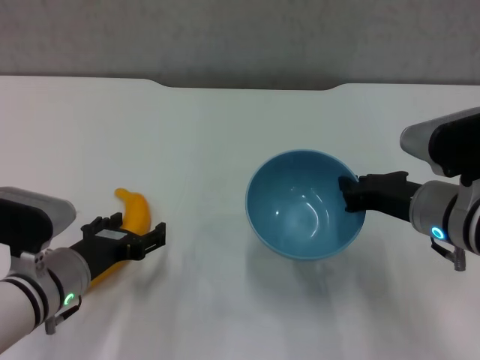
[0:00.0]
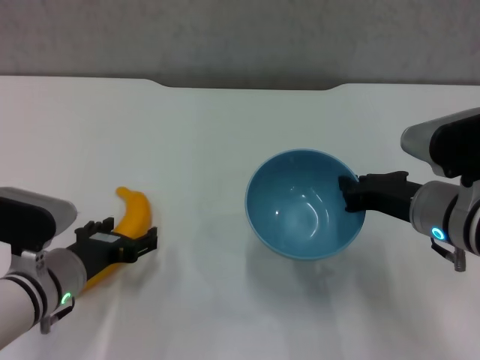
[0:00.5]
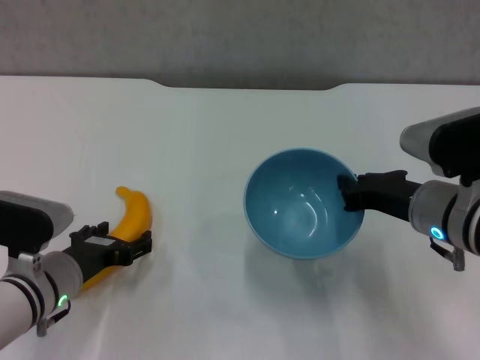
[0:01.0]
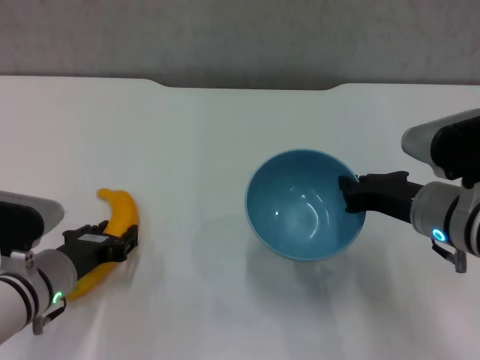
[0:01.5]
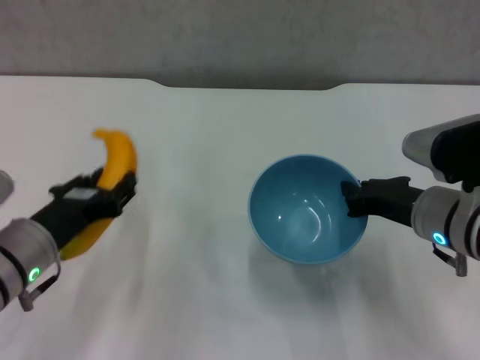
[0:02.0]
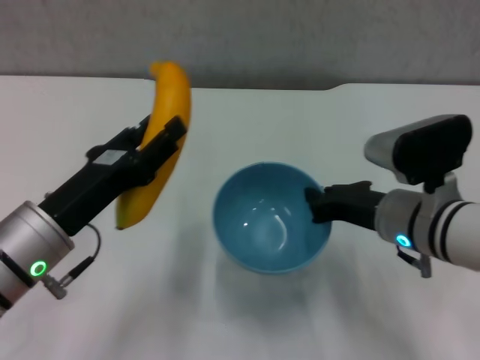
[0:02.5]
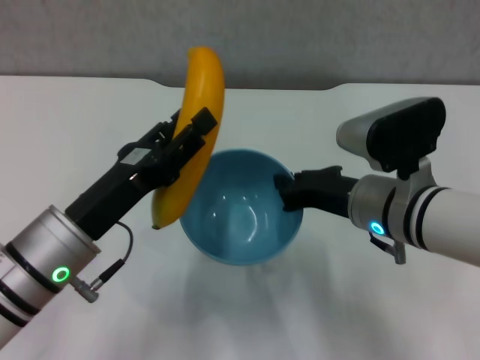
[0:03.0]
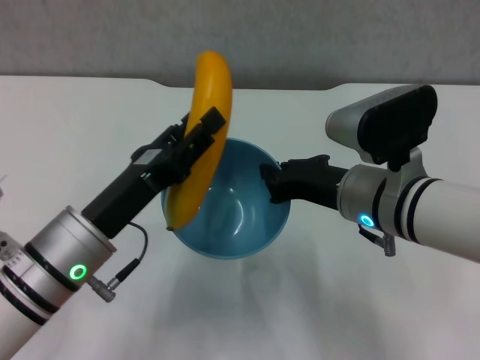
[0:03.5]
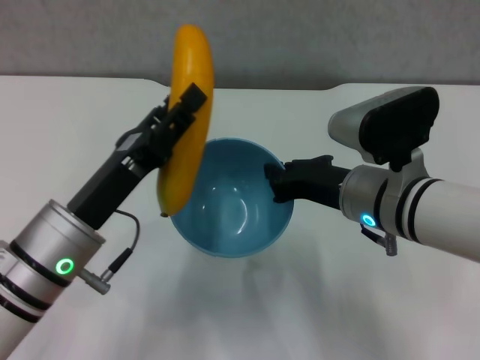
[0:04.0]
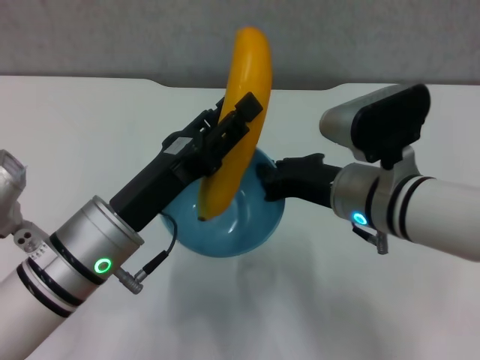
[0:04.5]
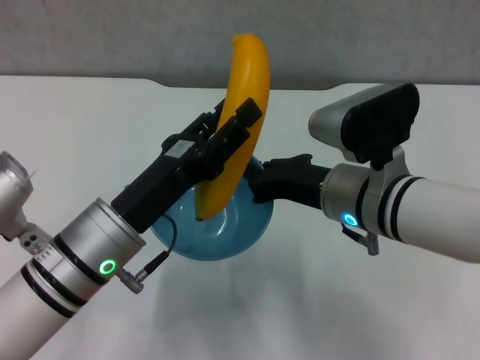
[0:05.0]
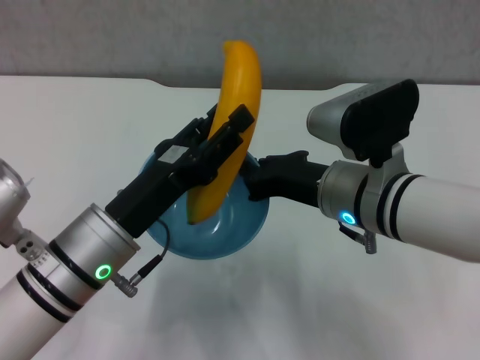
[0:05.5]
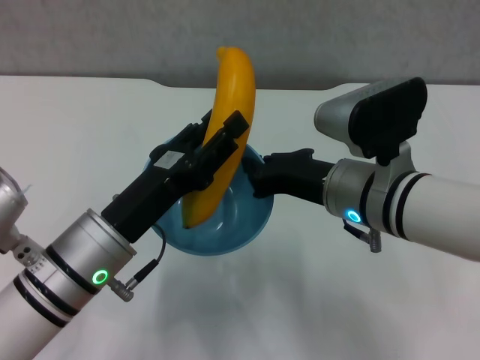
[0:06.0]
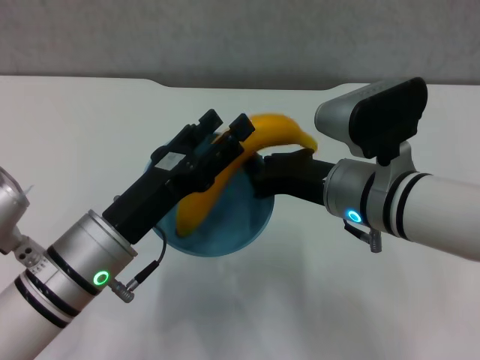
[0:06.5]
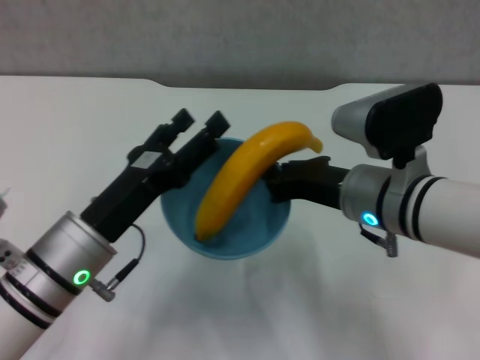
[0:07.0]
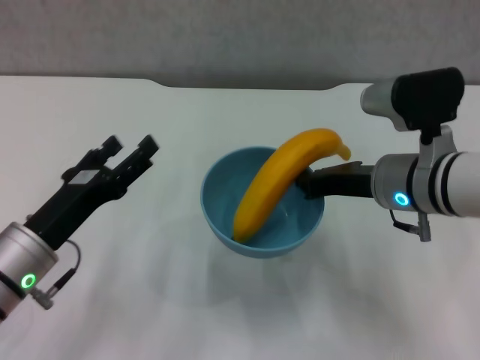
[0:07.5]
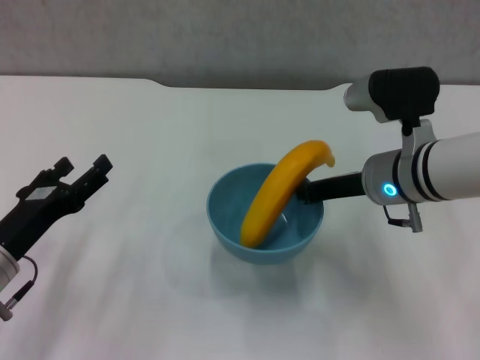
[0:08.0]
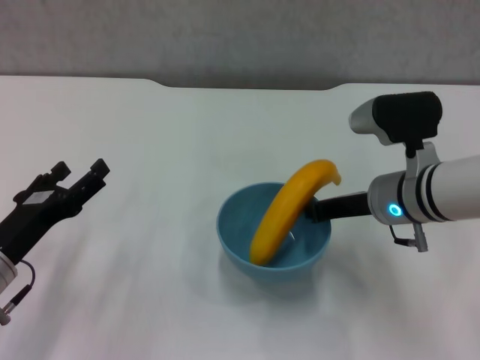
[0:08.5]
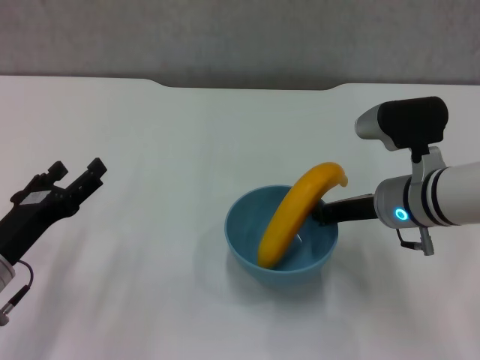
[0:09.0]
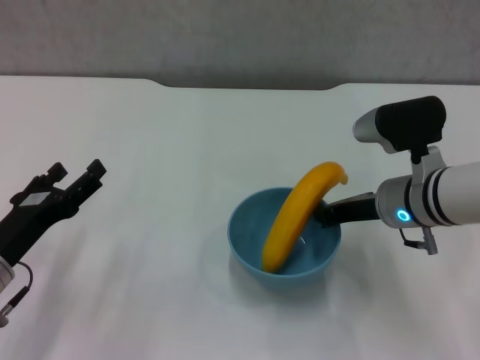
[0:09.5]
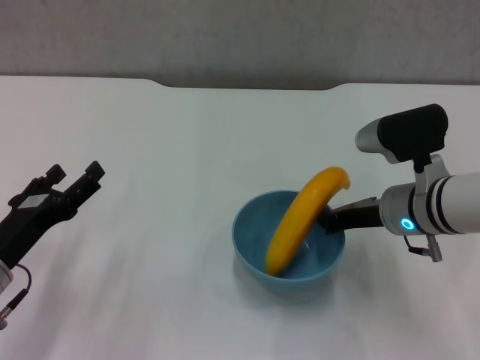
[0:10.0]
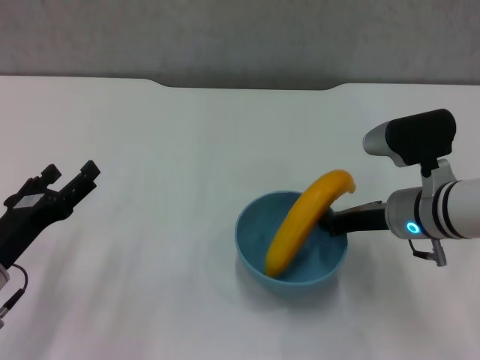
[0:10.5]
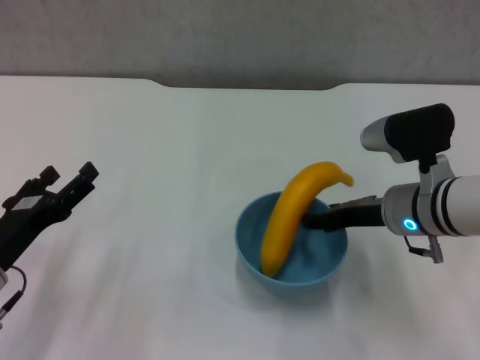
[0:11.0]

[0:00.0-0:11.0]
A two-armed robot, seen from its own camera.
Step, 0:01.5 to 0:07.0: Place the banana in the blue bowl with left gripper.
0:00.0 to 0:02.0: The left gripper shifts by about 5 cm, and closes up.
0:02.0 to 0:03.5: The left gripper travels to the right by approximately 5 cm; the right gripper goes roughly 5 cm to the left.
0:05.5 to 0:07.5: The right gripper travels to the right by some 5 cm, while the left gripper shifts roughly 10 cm to the left, and opens.
0:09.0 to 0:11.0: The right gripper opens its fingers.

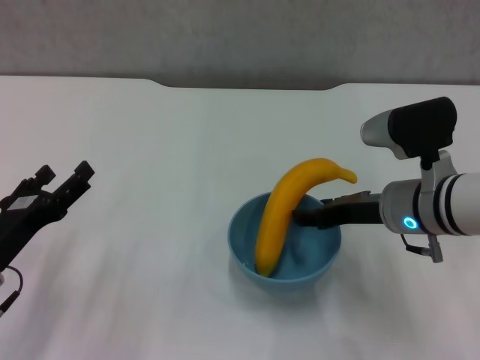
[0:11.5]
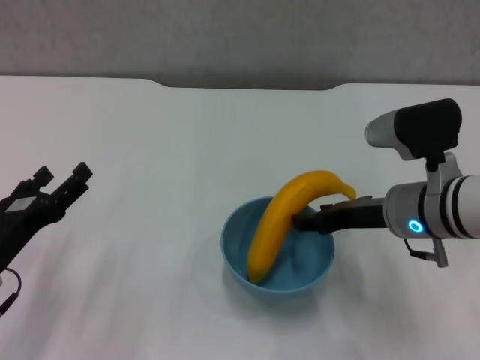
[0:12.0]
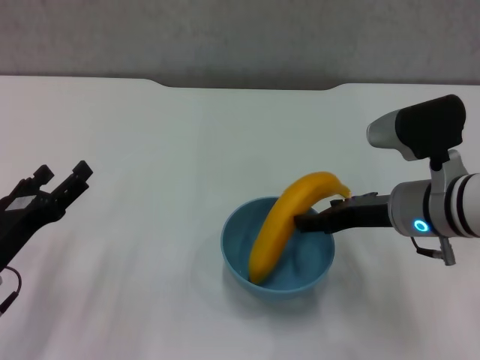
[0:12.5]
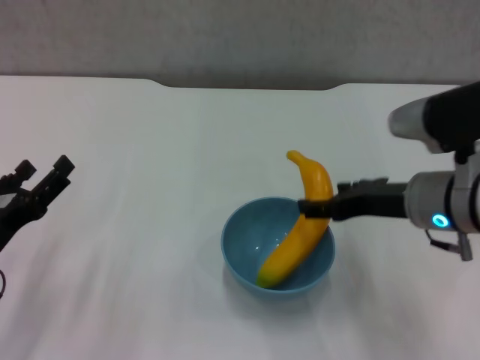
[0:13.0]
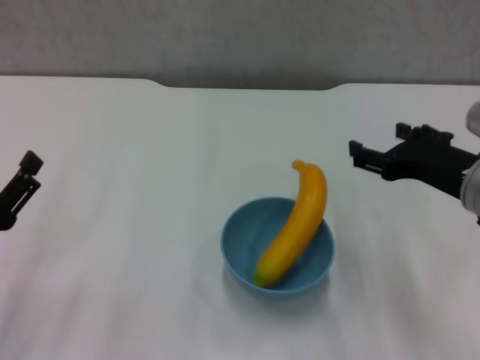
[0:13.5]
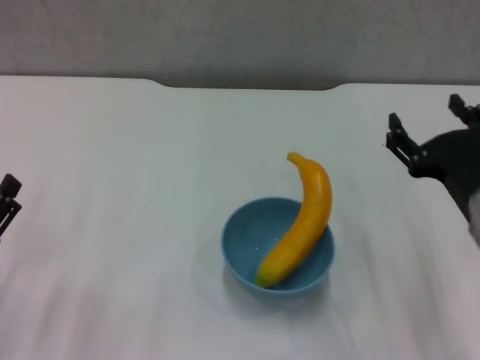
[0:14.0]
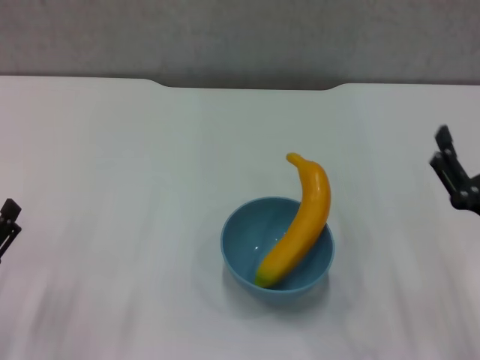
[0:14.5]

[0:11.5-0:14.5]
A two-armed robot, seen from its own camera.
0:11.5 to 0:13.0: The grippers stay close to where they were, moving slightly.
0:13.0 to 0:14.5: The left gripper travels backward by some 5 cm. The right gripper heads backward, downward and to the right, covering about 15 cm.
